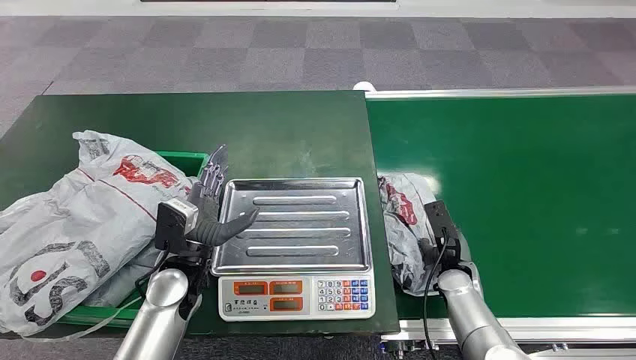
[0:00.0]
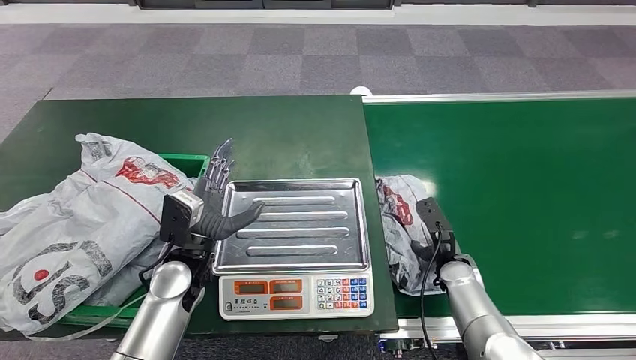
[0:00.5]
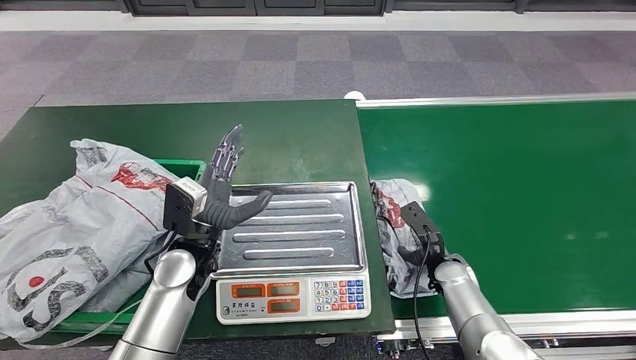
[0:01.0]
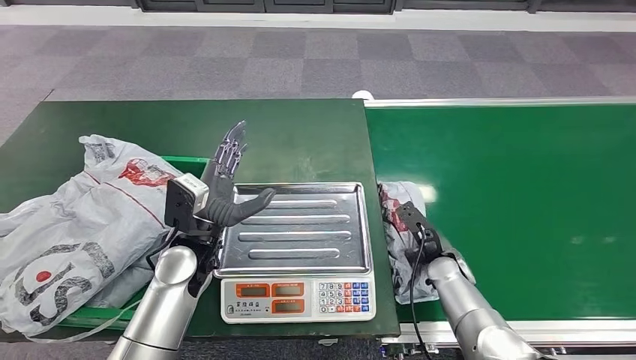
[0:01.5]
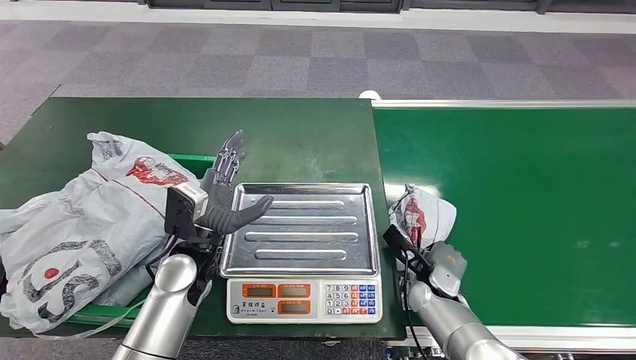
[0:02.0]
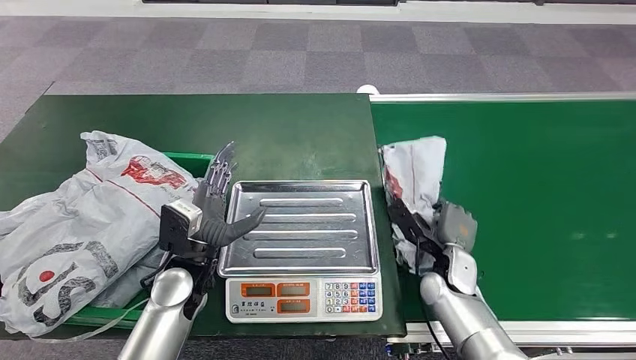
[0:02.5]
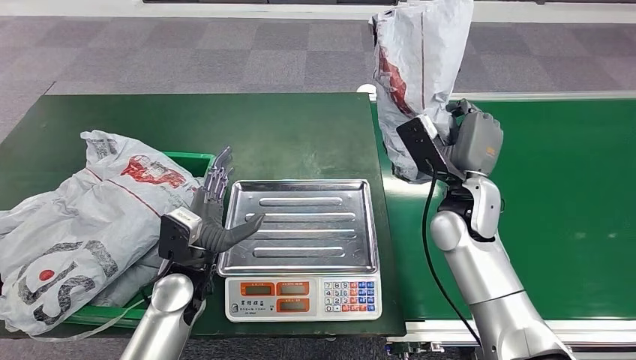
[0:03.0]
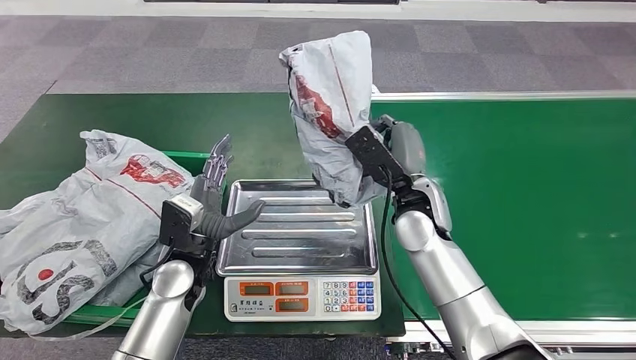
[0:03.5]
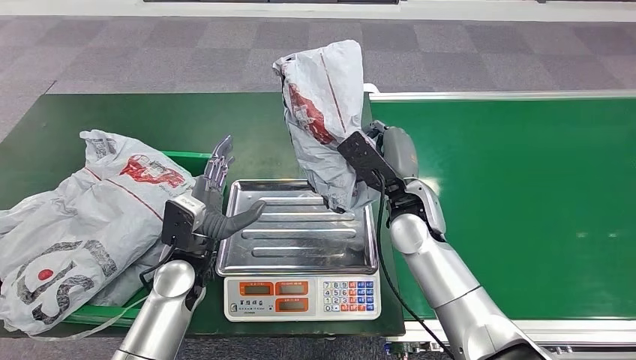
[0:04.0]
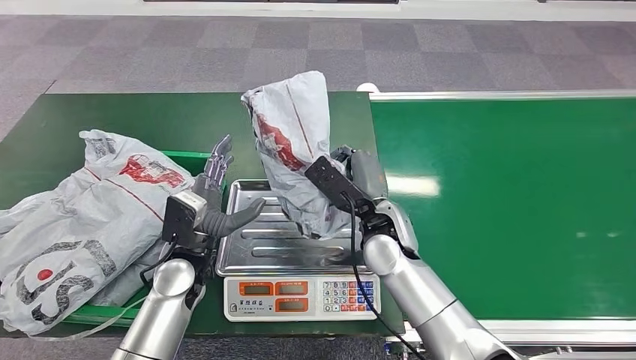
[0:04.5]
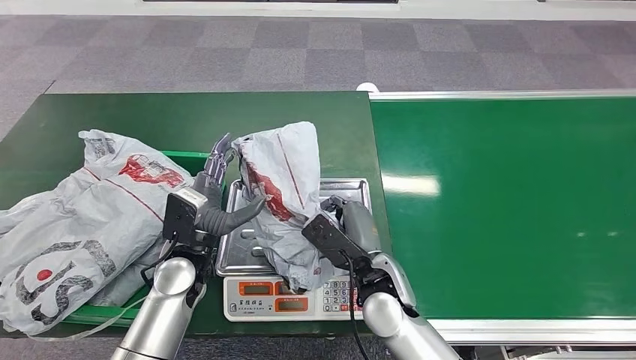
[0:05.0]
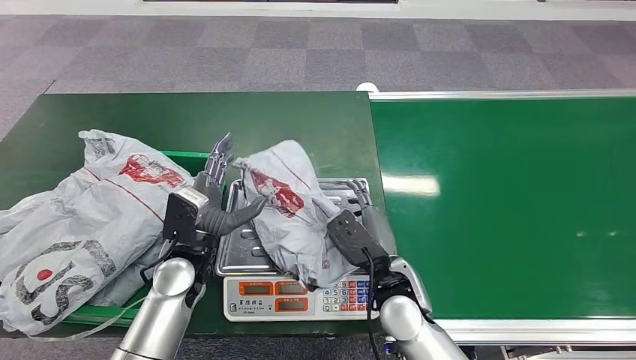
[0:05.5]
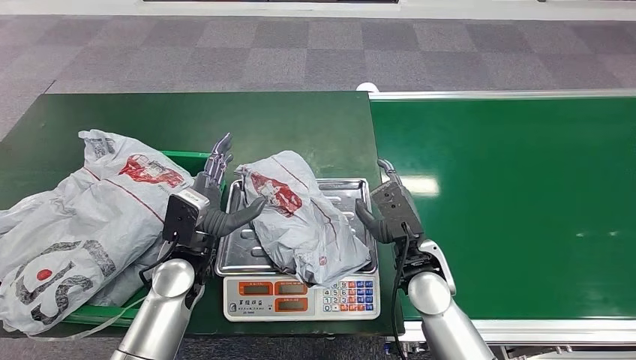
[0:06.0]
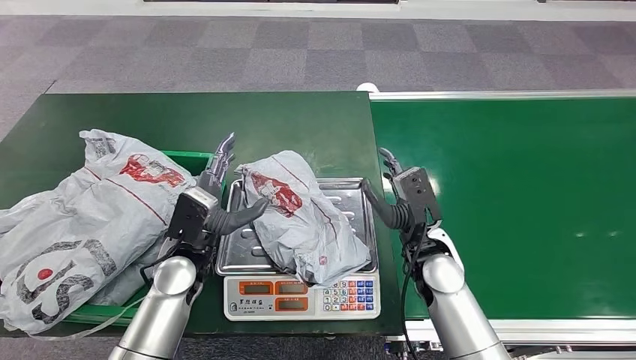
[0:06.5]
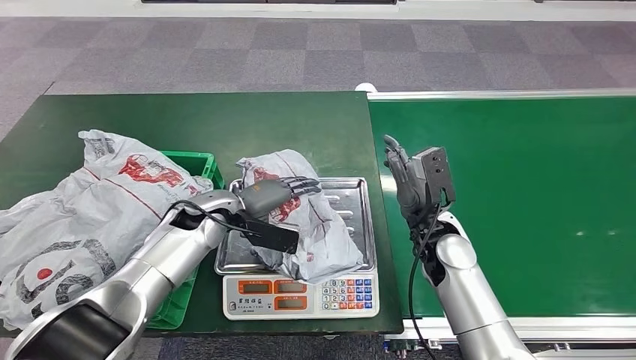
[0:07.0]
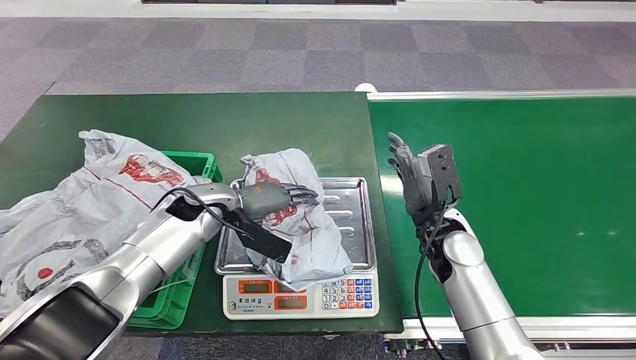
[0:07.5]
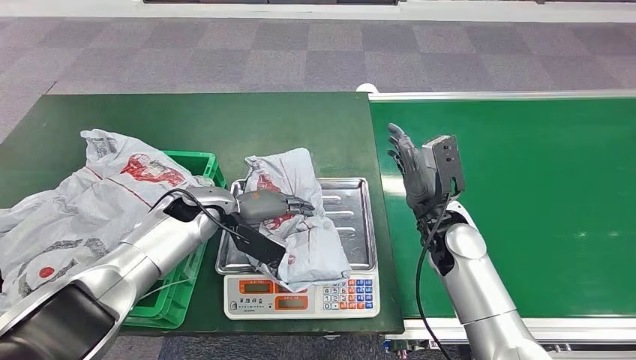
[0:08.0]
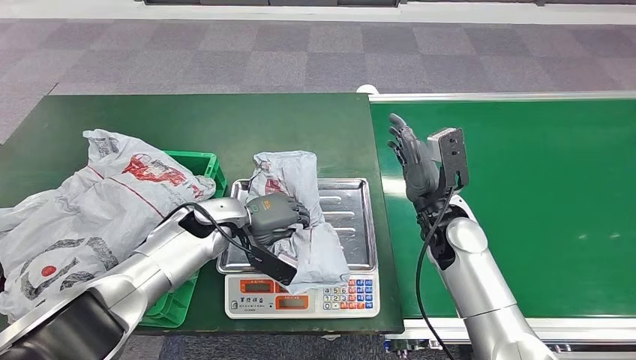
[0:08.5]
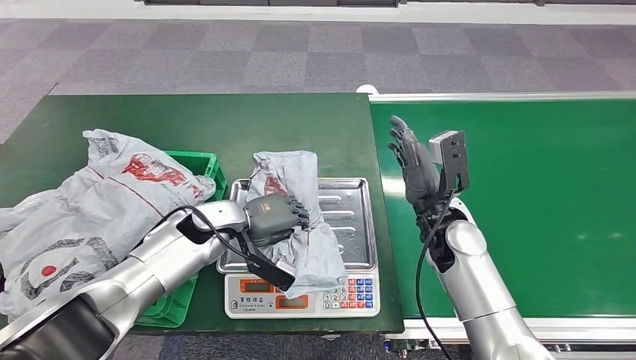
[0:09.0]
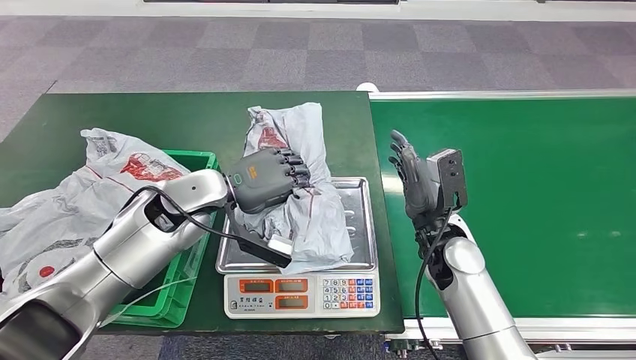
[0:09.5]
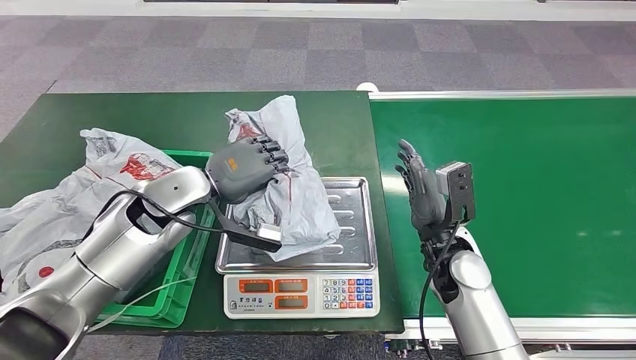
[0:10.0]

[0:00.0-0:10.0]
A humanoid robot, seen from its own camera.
Step, 0:00.0 to 0:02.5: Pick up the package from the conveyor belt.
Step, 0:03.0 to 0:05.5: Place the package onto the inbound machine.
Step, 0:06.0 to 0:10.0: Pick up the package from the inbound machine.
0:04.0 to 0:06.0: The right hand travels backward and downward by roughly 10 cm.

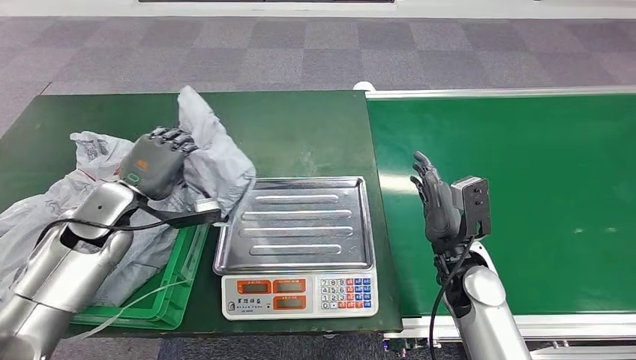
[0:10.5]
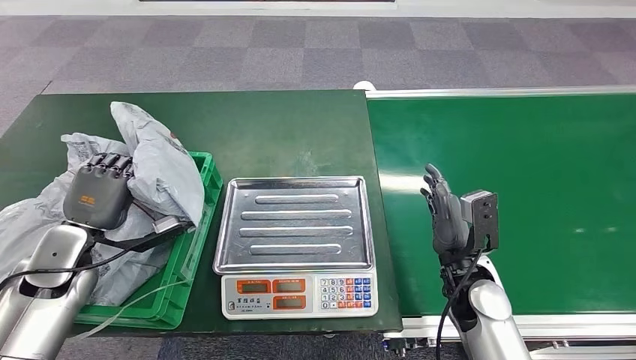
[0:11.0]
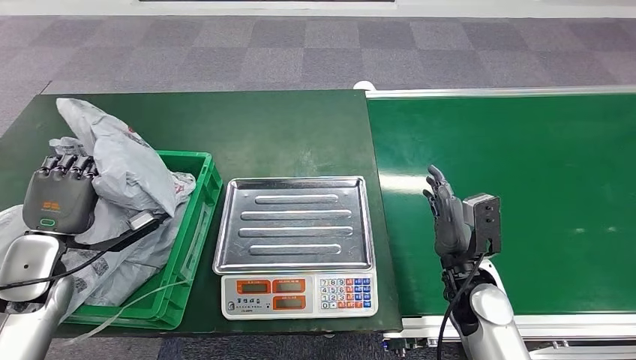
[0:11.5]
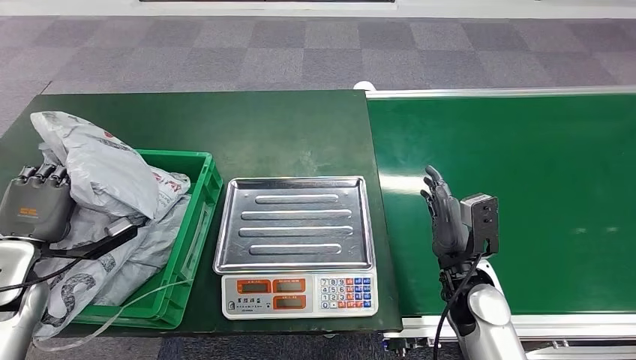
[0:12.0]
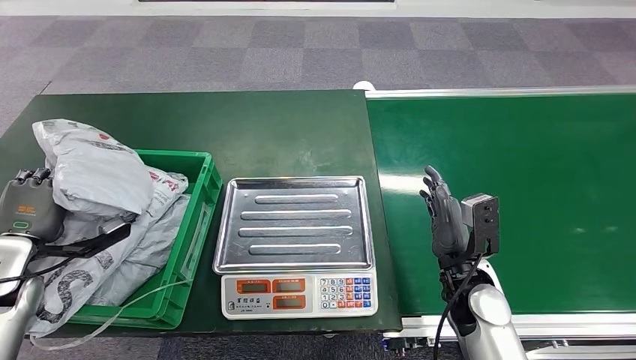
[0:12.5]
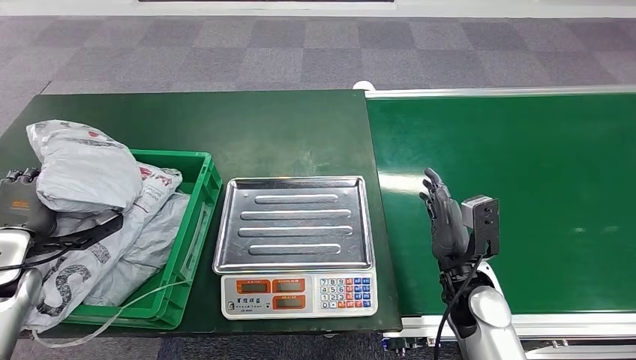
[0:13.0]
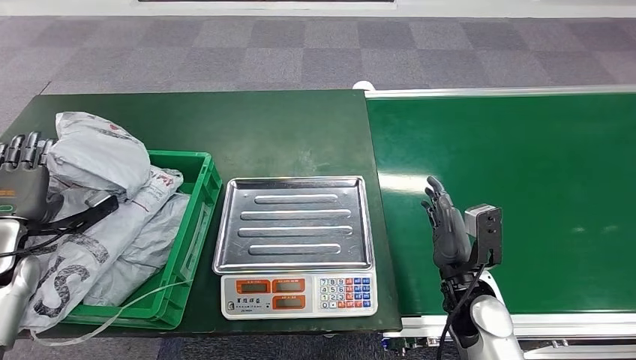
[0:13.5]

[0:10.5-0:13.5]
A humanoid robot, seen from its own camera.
Step, 0:10.5 to 0:13.5: Place the package into the parcel locker.
0:12.0 to 0:13.5: The left hand ends up some 5 cm from where it was.

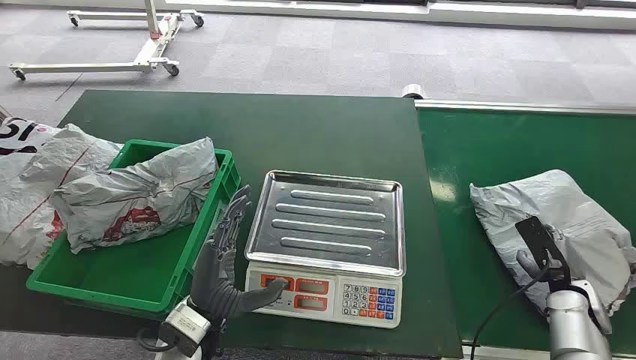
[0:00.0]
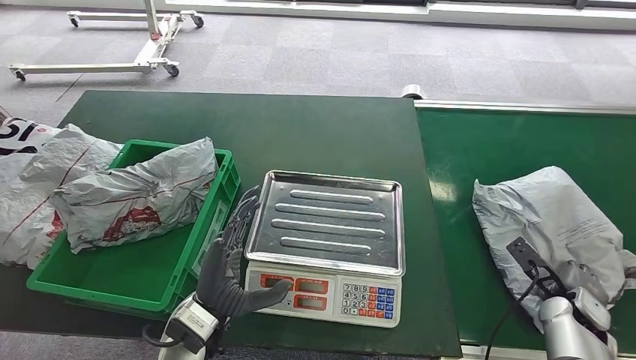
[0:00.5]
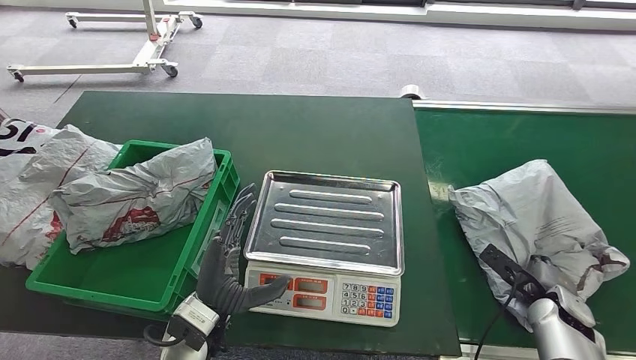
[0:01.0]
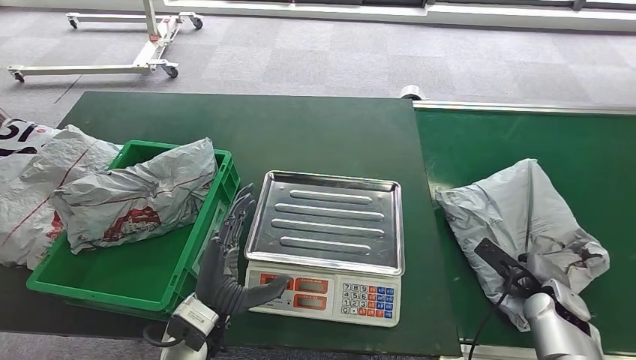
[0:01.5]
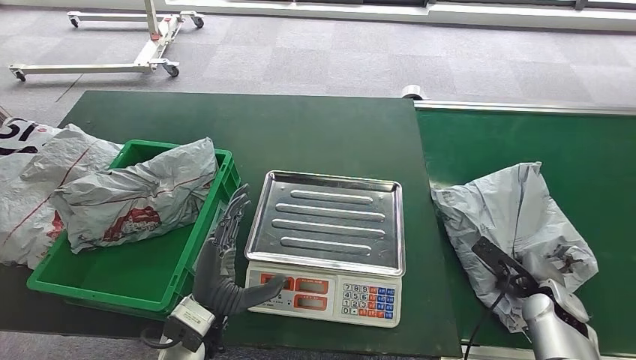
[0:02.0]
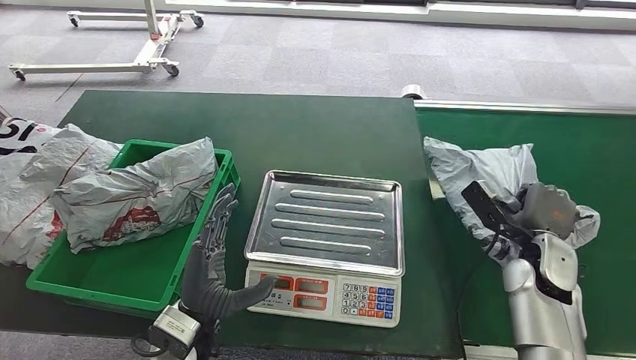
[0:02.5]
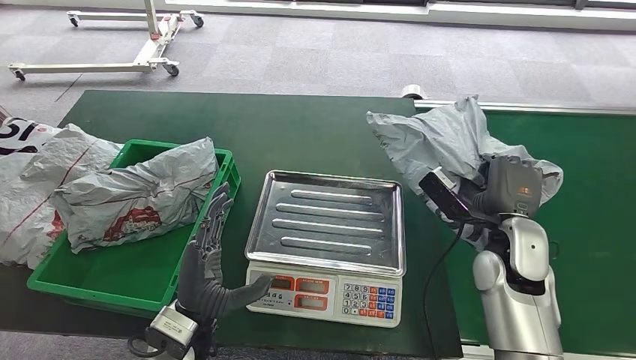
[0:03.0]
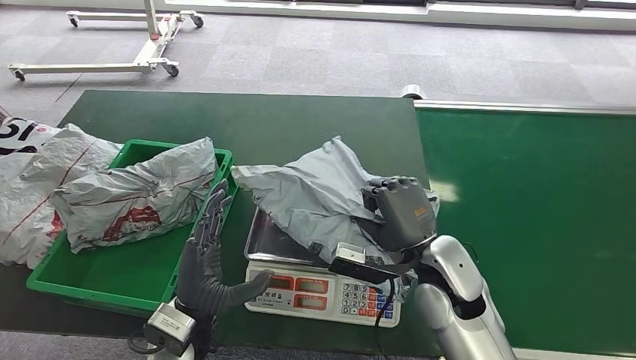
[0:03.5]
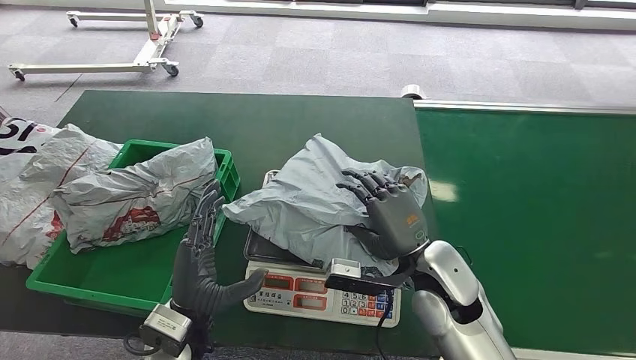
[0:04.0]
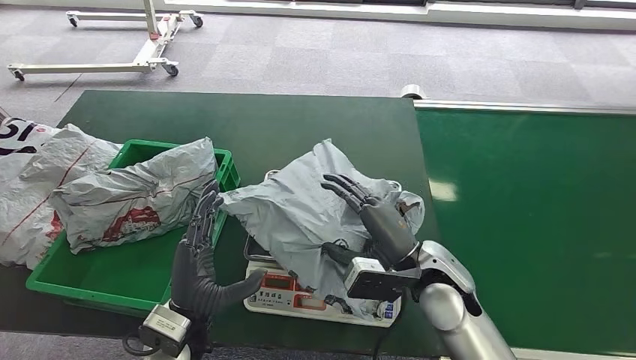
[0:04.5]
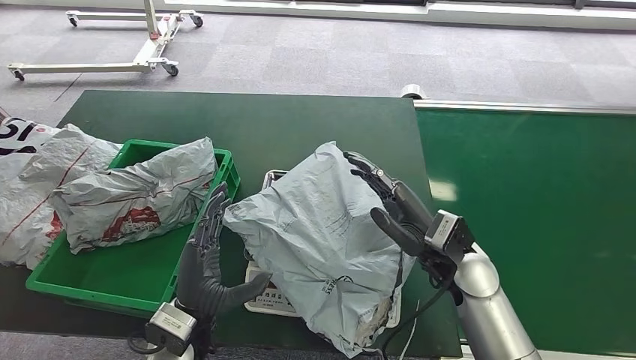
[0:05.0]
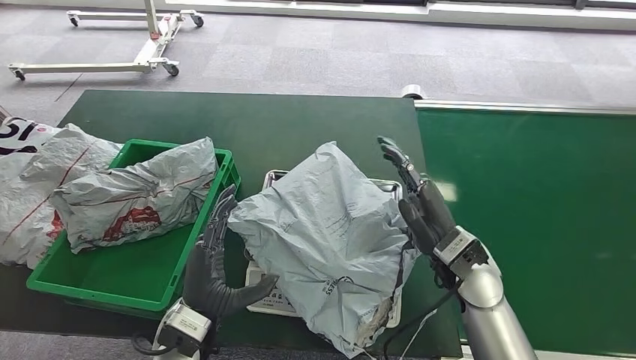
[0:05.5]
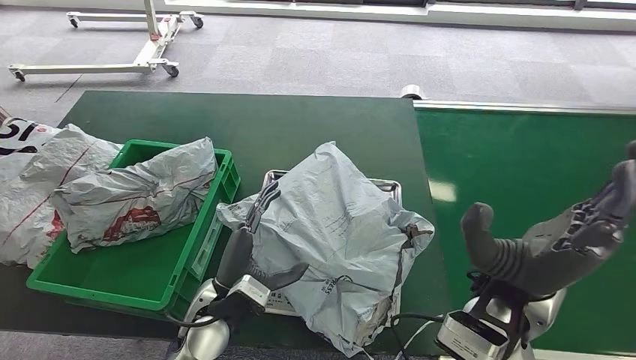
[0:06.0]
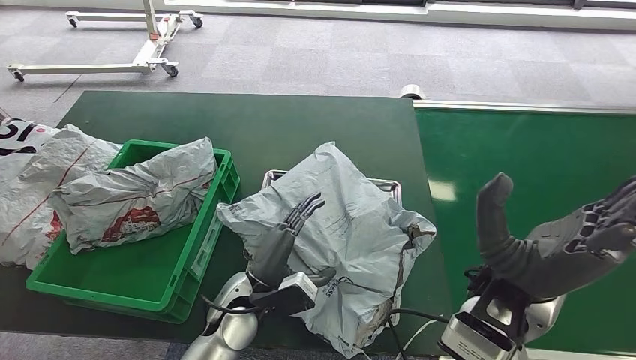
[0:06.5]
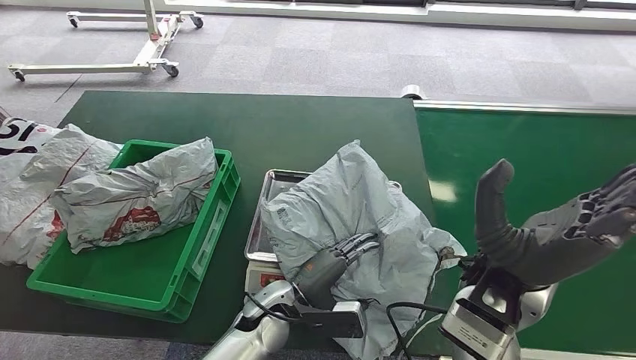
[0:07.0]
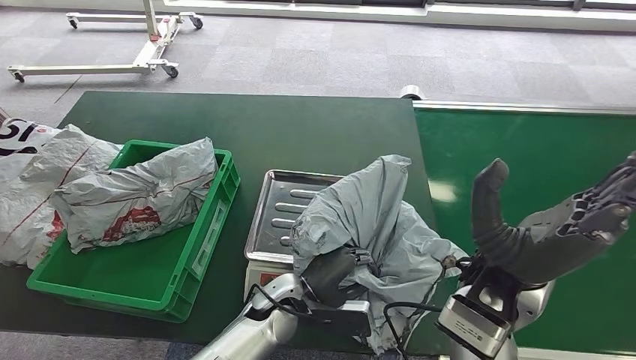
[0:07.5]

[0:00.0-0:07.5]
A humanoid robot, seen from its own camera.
Step, 0:00.0 to 0:02.5: Pick up the package from the conveyor belt.
Step, 0:03.0 to 0:05.5: Place the package onto the inbound machine.
